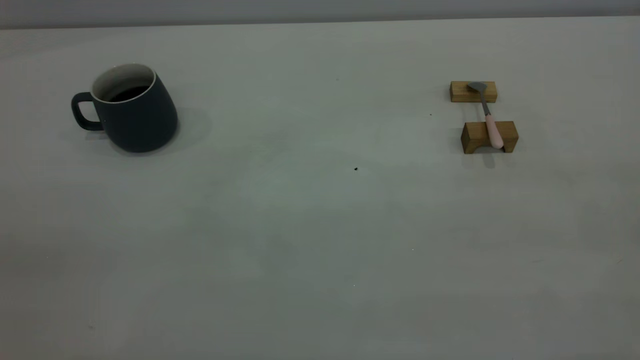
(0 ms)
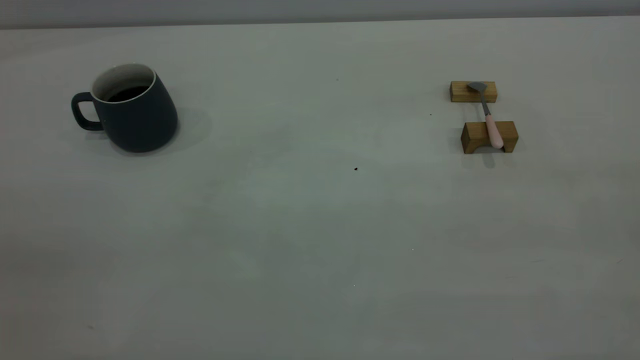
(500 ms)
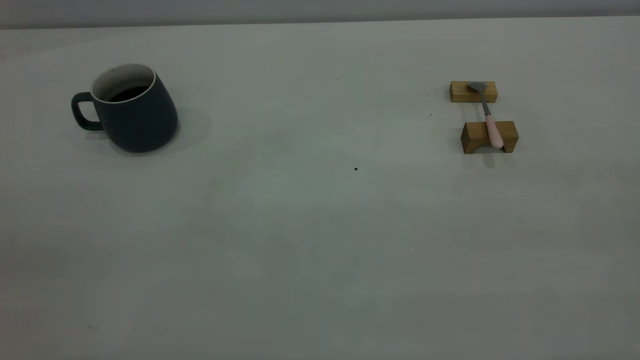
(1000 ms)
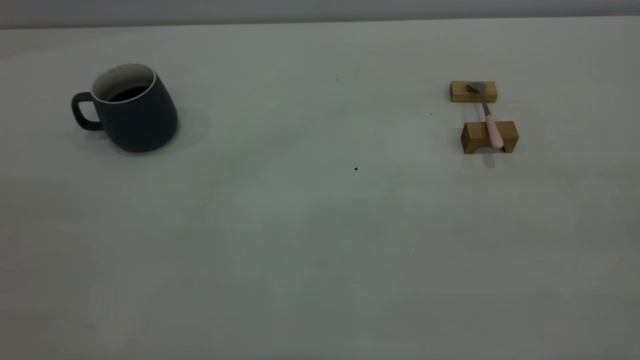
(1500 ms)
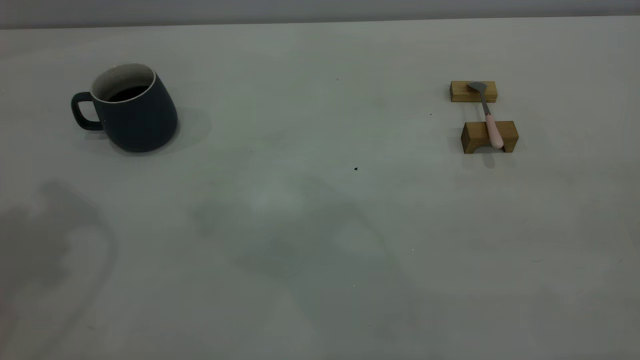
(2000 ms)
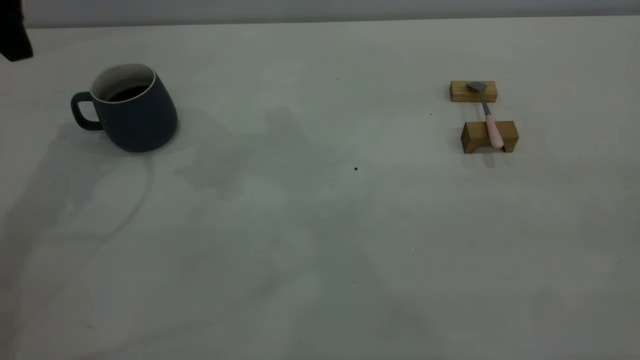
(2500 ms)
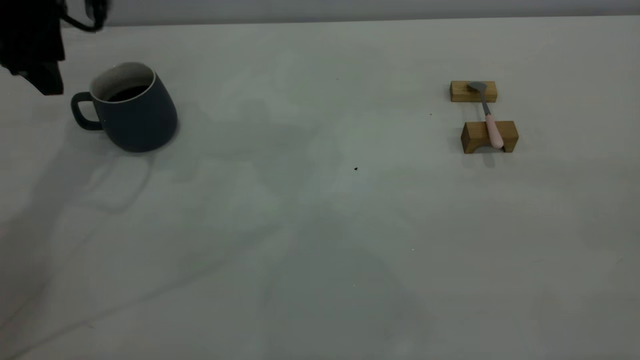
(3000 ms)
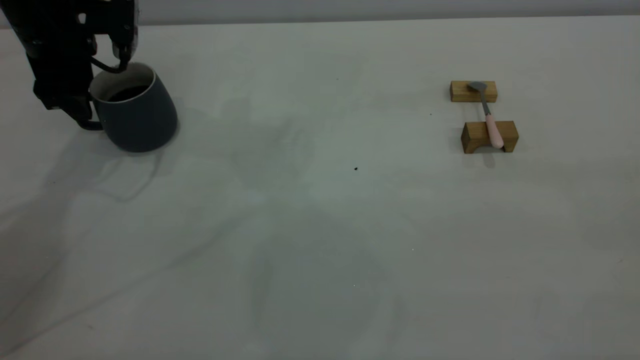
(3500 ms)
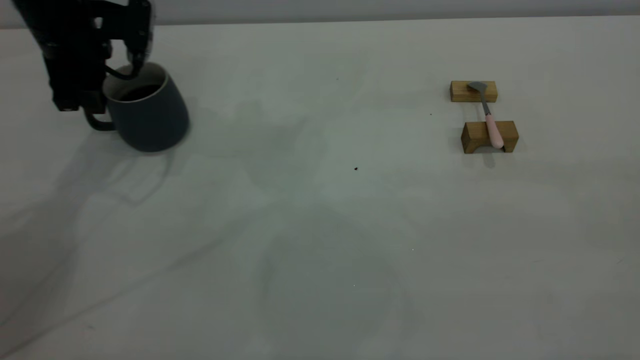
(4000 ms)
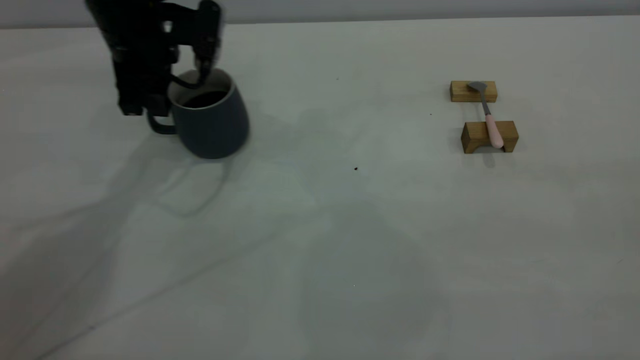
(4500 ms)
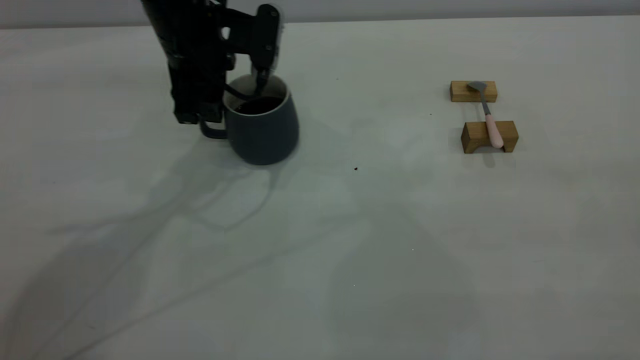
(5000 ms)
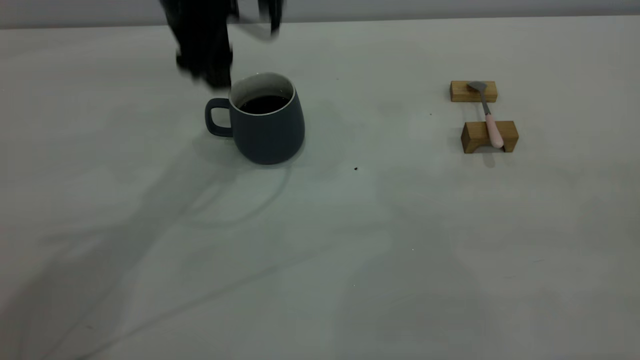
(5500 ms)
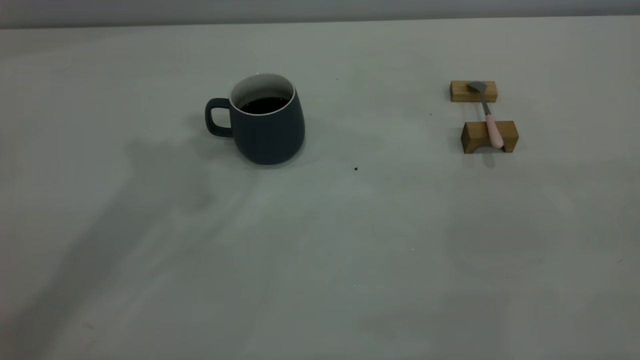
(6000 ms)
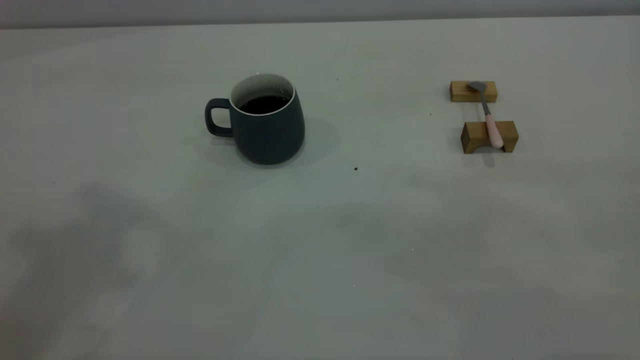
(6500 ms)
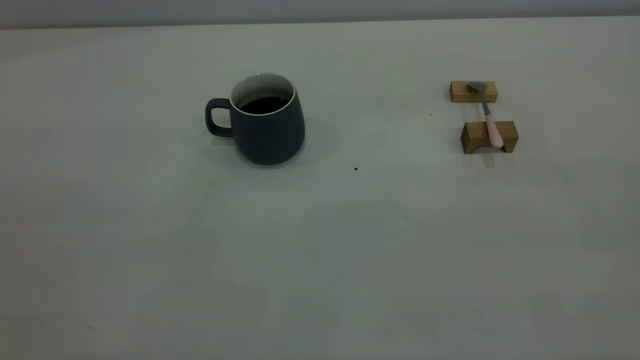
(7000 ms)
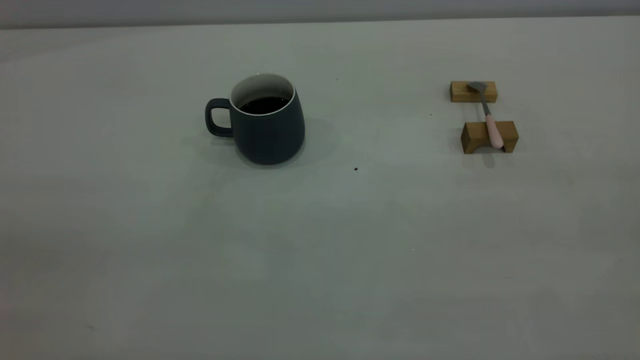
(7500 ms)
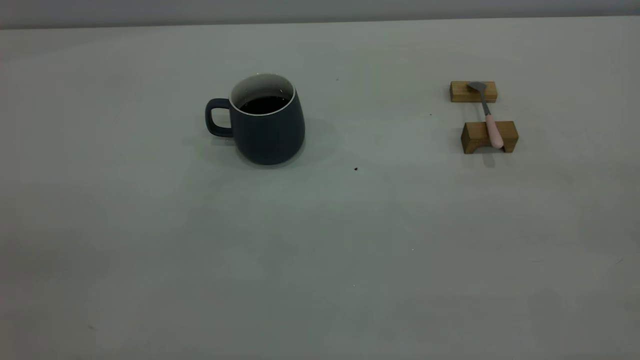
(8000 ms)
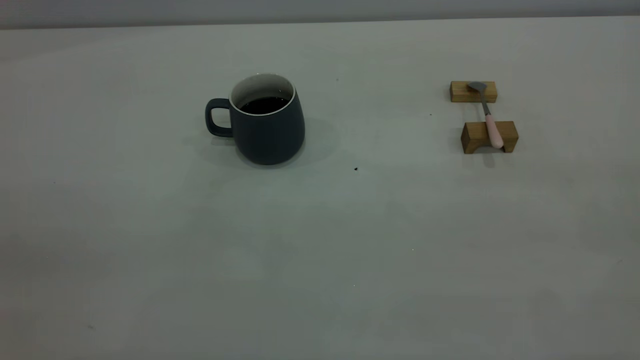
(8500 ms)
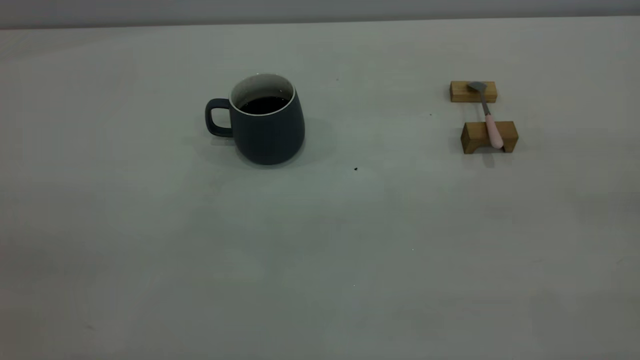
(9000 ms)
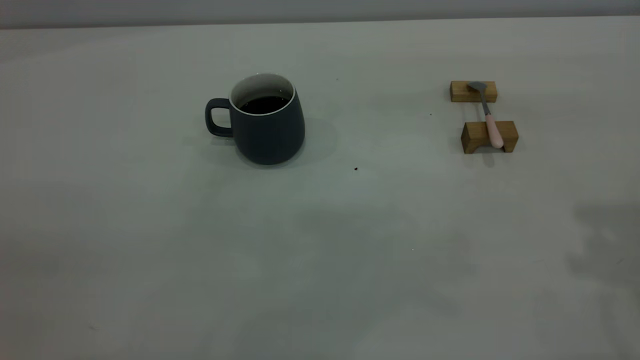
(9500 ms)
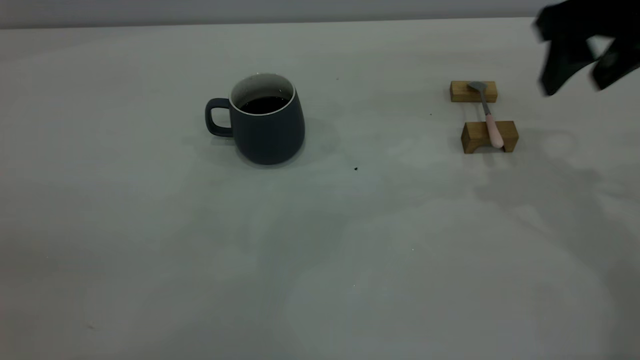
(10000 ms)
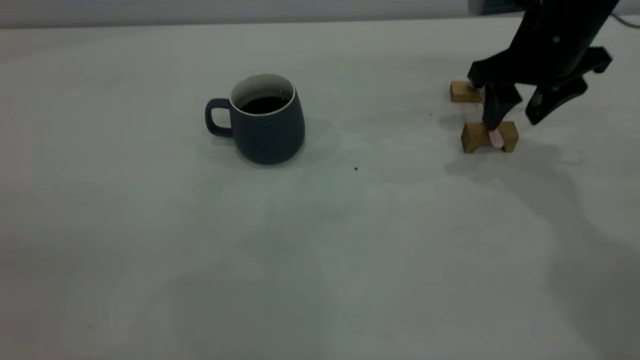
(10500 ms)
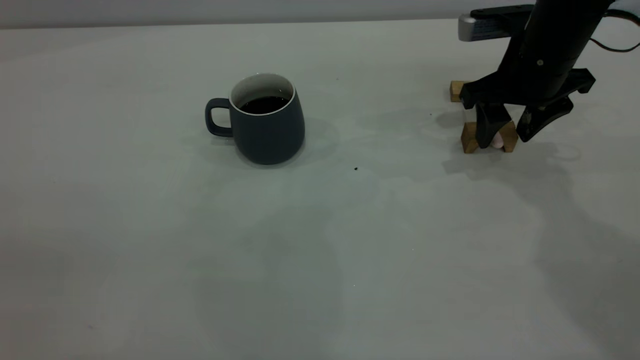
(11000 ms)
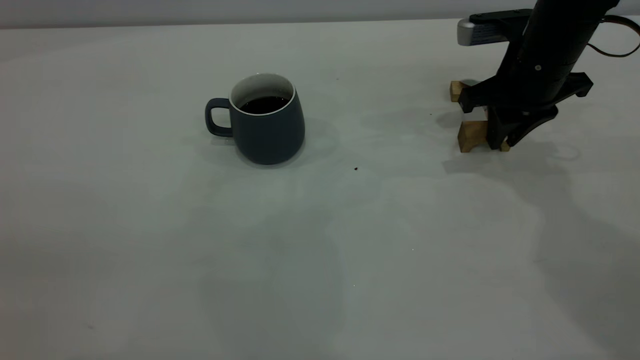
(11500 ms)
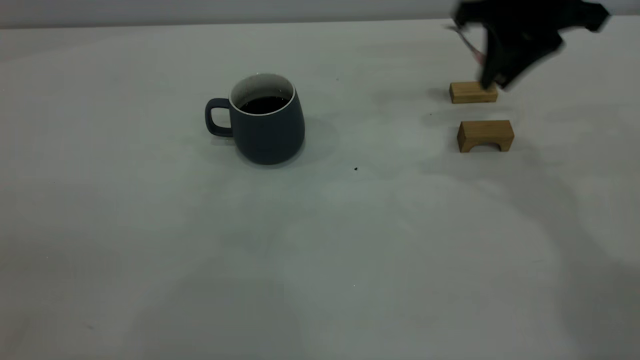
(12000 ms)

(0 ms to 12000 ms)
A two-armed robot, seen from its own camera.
Step, 0 ms - 5500 ms: Move the cup with coffee to the center of view.
Step, 6000 ms - 11500 ms: Pick up the spoon.
2000 ms - 4000 ms: The left gripper goes some 30 cm downward and forward, and closes.
4000 ms - 6000 ms: The left gripper shifts about 30 cm upward, to the right and backward, and opens, then closes once more.
8000 ms - 10000 ms: The right gripper moves forward, about 35 cm, and opens up.
10000 ms - 12000 ms: The right gripper goes roughly 5 cm to the left, moves approximately 10 cm downward and comes back, and closes up.

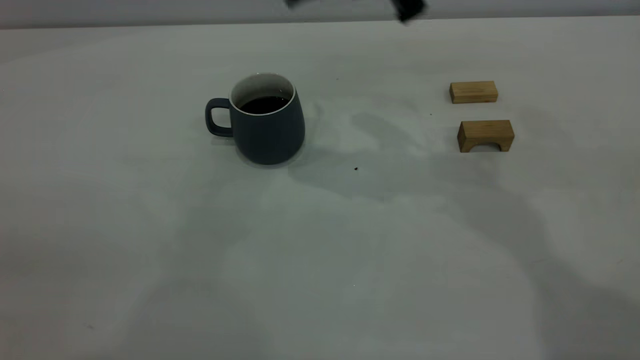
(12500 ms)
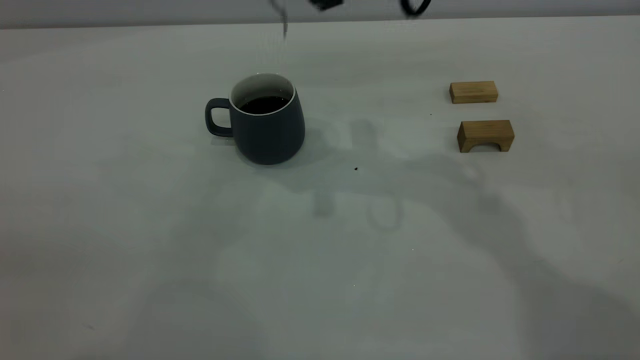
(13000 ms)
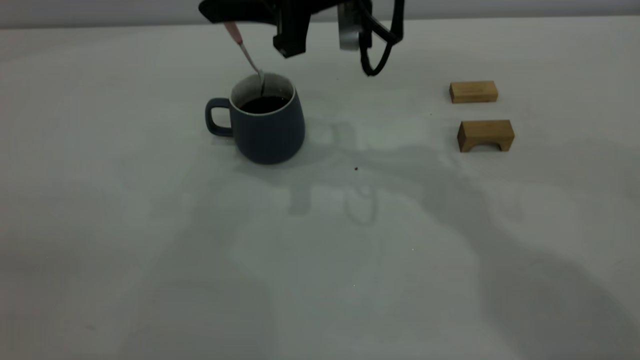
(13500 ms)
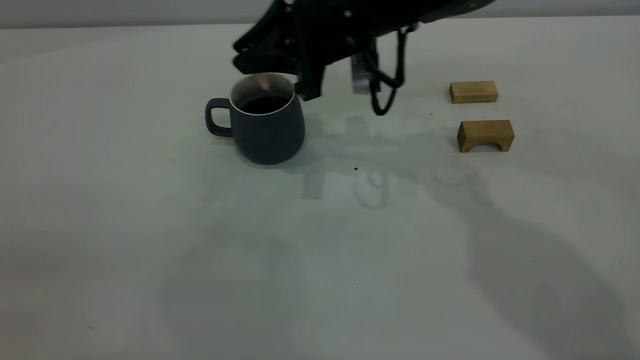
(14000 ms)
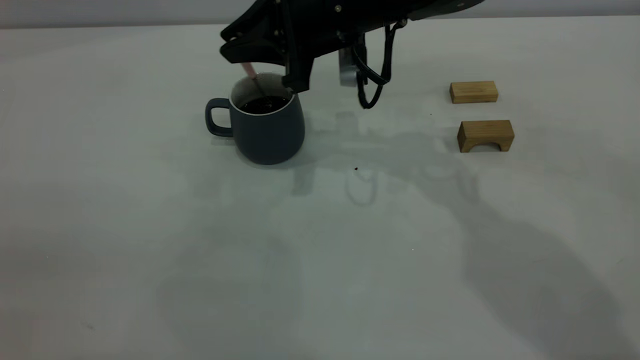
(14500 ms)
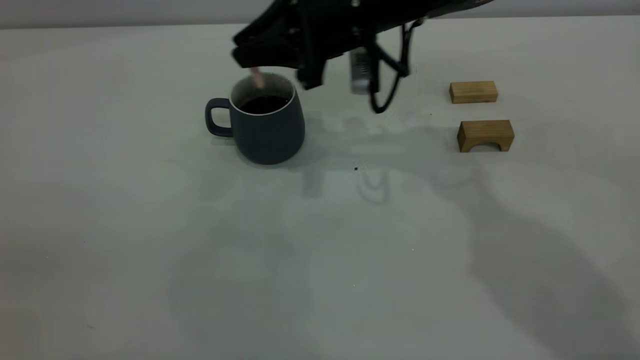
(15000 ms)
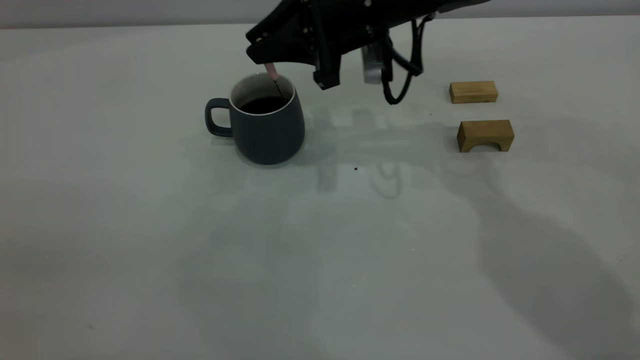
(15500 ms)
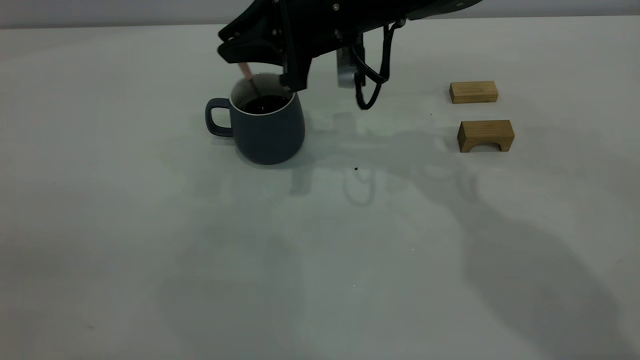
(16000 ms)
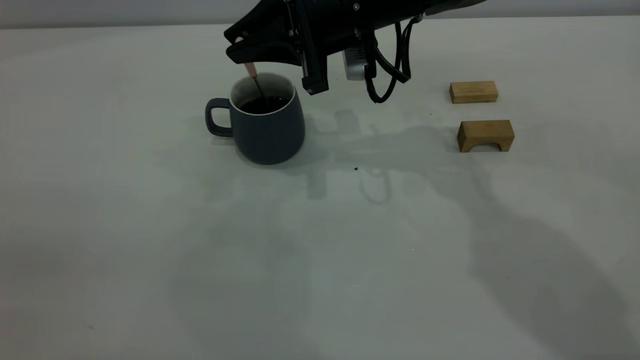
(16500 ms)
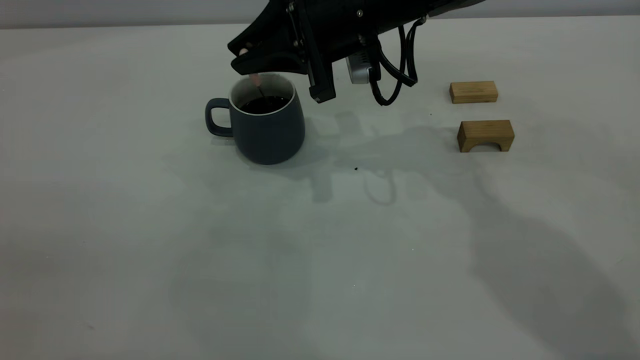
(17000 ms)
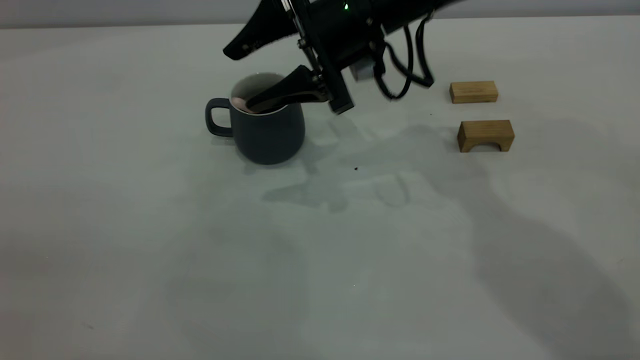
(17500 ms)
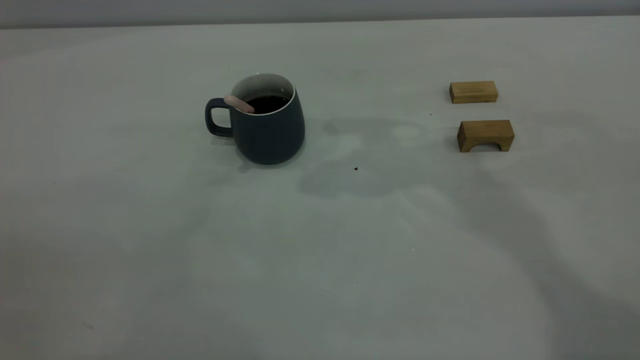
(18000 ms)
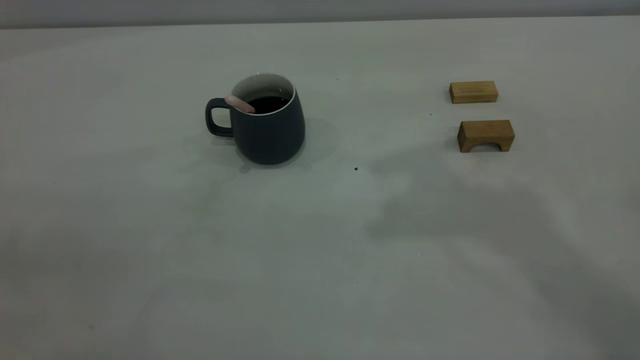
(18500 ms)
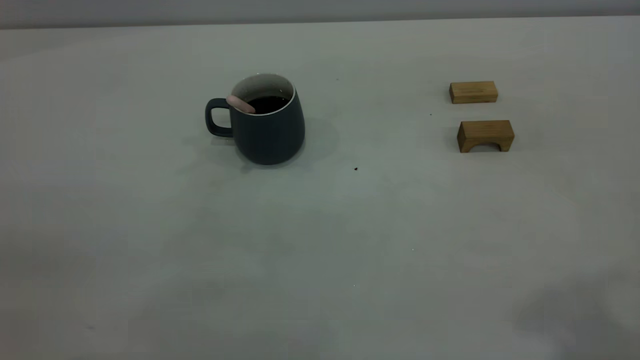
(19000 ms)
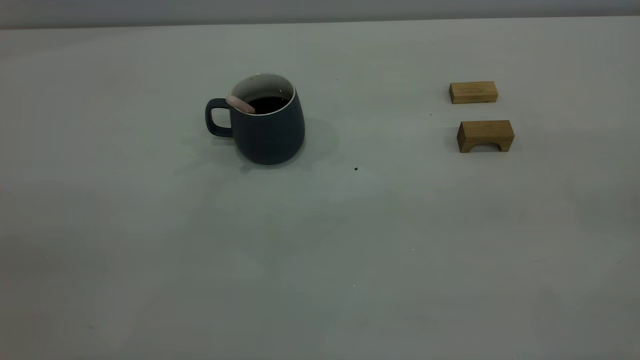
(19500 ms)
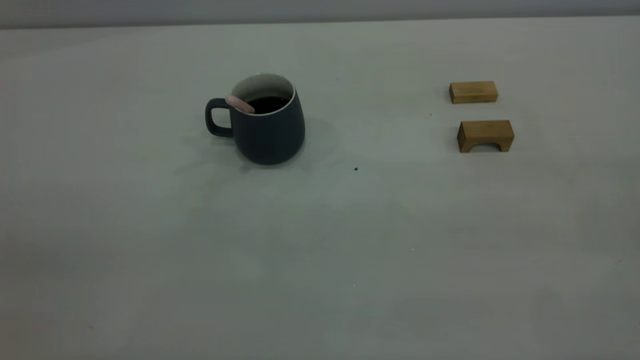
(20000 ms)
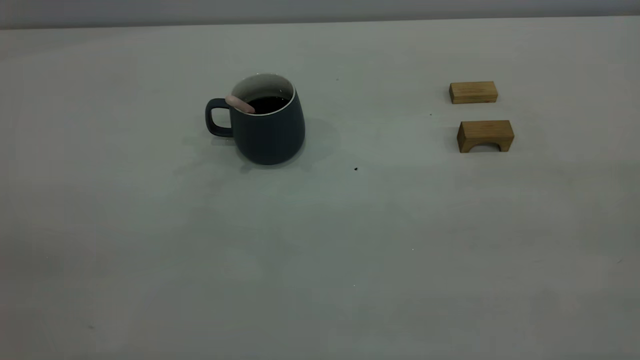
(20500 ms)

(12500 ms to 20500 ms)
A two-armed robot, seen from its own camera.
Step, 12500 ms - 17500 ms: Stir the coffee in the cup.
12500 ms - 14500 ms: The right gripper shifts some 15 cm downward and forward.
14500 ms - 16500 ms: The grippers make only small movements.
16500 ms - 18500 ms: The right gripper heads upward and backward, covering about 30 cm, and opens and closes again.
